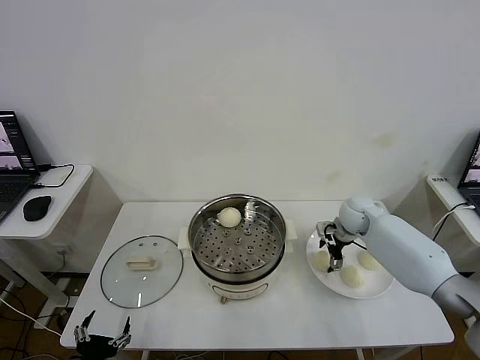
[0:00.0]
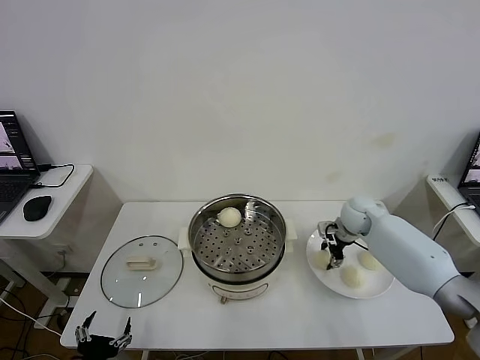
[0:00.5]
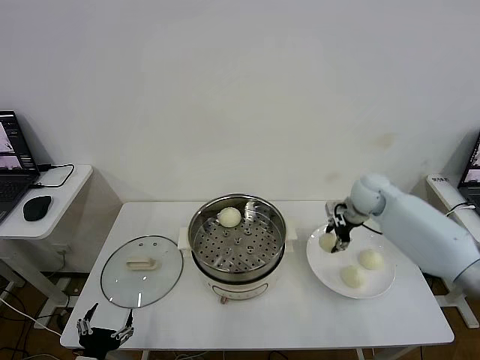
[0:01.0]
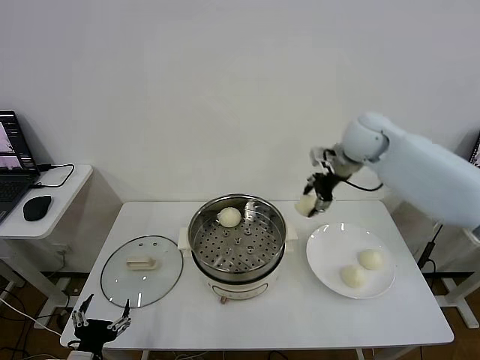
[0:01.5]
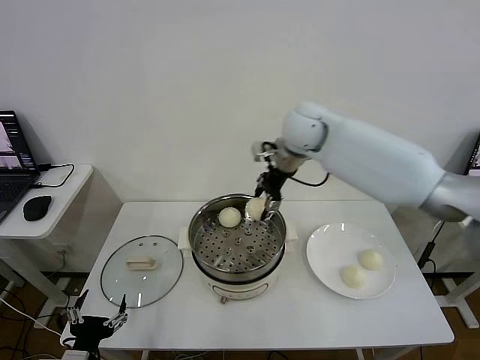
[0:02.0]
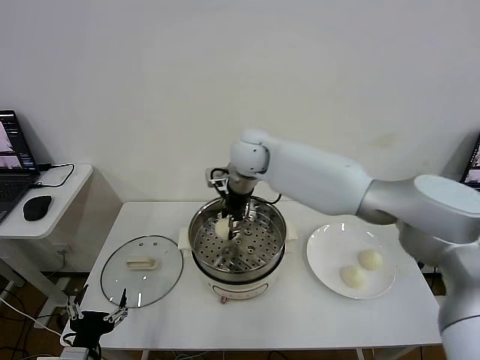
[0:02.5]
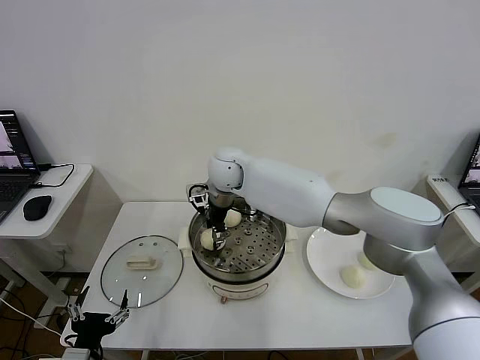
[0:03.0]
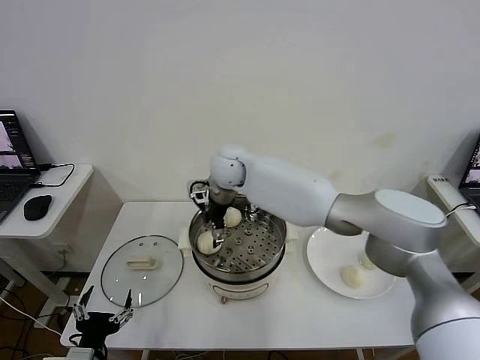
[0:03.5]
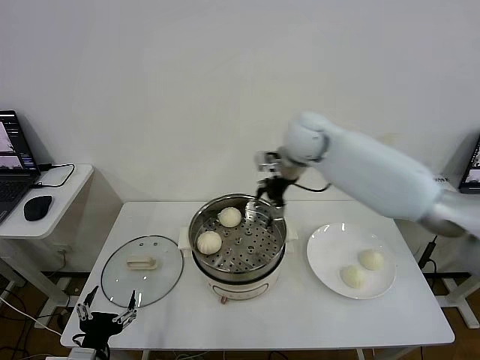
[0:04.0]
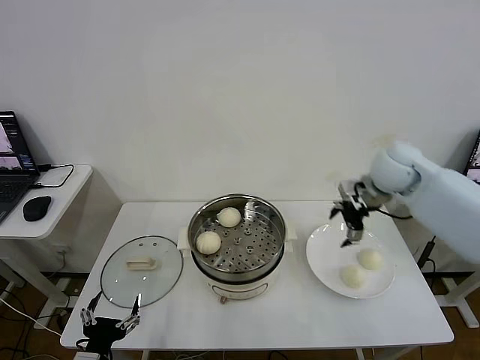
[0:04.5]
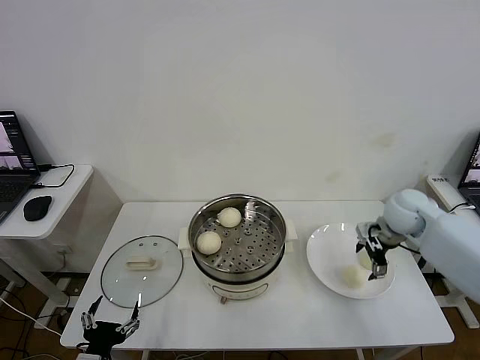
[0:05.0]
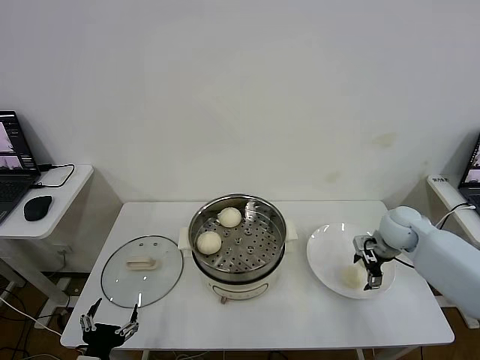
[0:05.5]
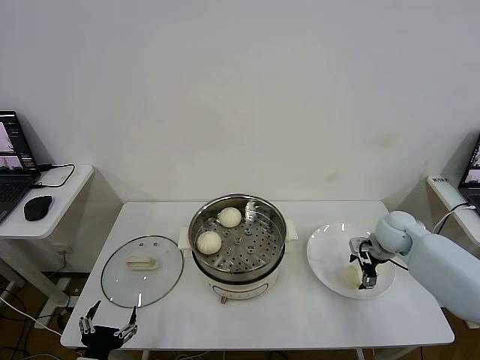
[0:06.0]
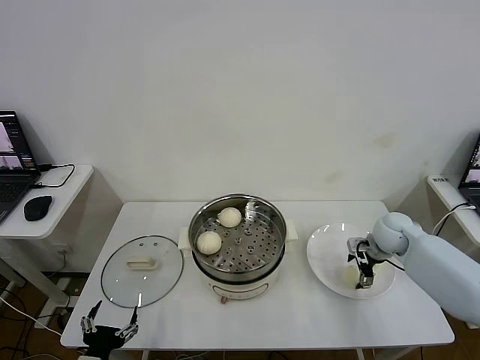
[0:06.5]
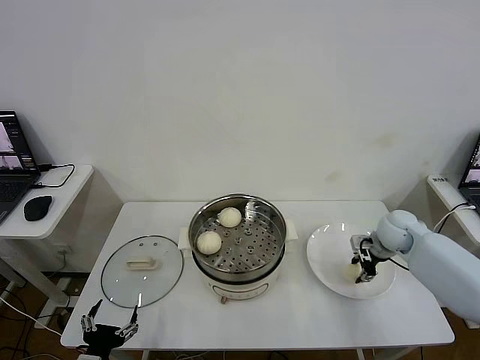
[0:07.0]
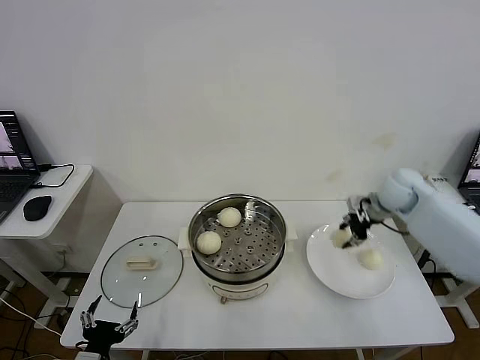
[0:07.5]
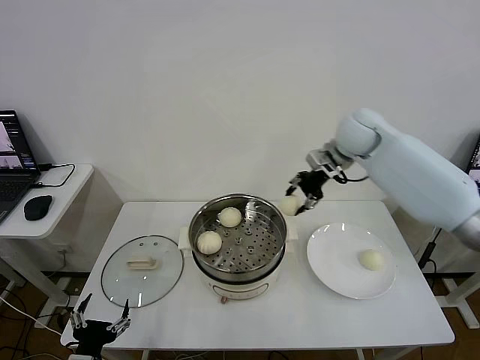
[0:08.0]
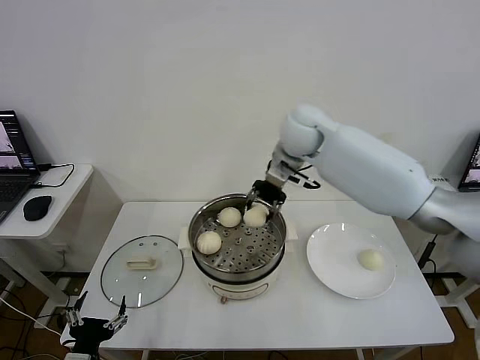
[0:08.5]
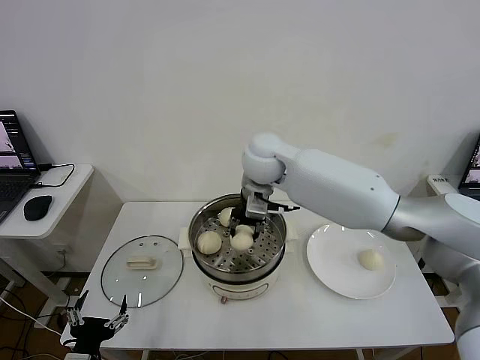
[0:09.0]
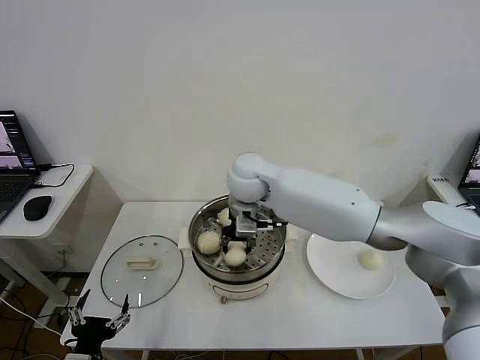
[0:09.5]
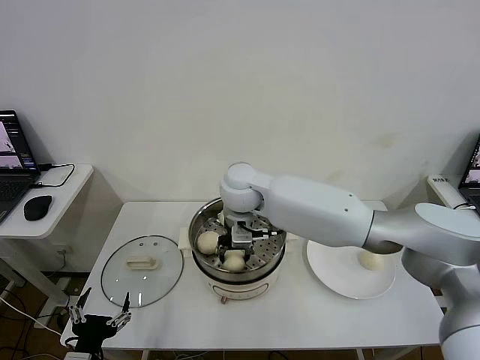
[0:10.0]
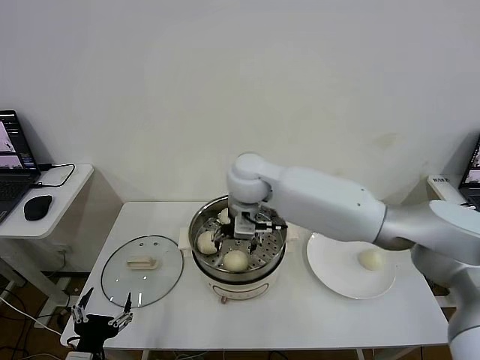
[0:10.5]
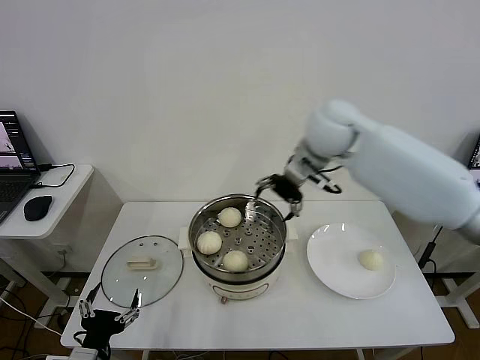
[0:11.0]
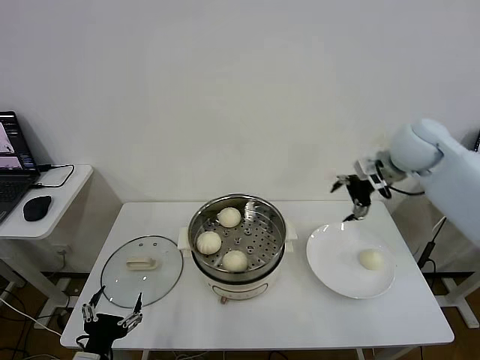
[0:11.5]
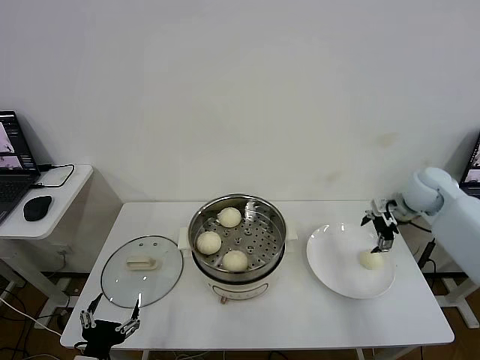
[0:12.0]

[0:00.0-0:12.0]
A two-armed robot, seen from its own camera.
Step, 0:00.5 to 0:03.0: Place the baozi on the steamer with right gripper.
Step, 0:04.0 to 0:06.5: Grasp the baozi in the plate with right gripper.
Step, 0:07.0 to 0:10.0: Place the baozi on the steamer with right gripper.
0:00.0 to 0:02.0: The right gripper goes some 30 cm upward and to the left, and closes up.
0:02.0 to 0:04.0: The right gripper is displaced to the right by approximately 10 cm, and opens up.
0:04.0 to 0:06.0: The right gripper heads downward and to the right, covering some 30 cm.
0:06.0 to 0:08.0: The right gripper is displaced upward, to the left and forward by roughly 30 cm, and closes its fingers.
0:08.0 to 0:10.0: The right gripper travels to the left by approximately 20 cm.
0:10.0 to 0:12.0: The right gripper travels to the right by approximately 40 cm, and opens up.

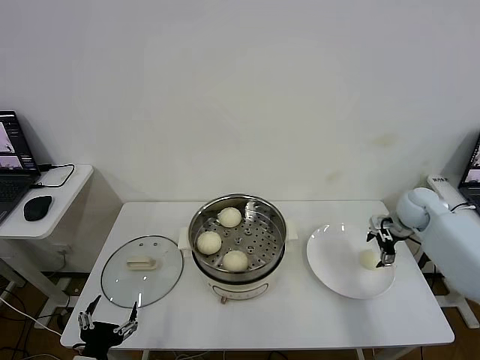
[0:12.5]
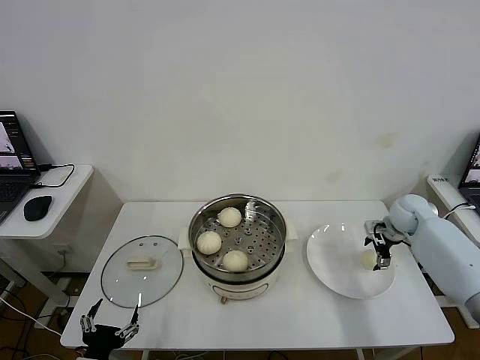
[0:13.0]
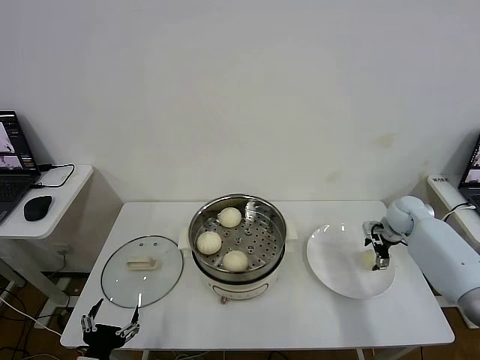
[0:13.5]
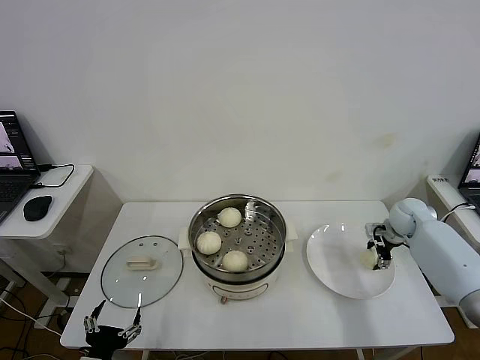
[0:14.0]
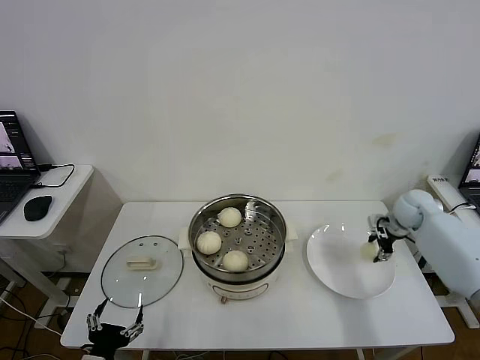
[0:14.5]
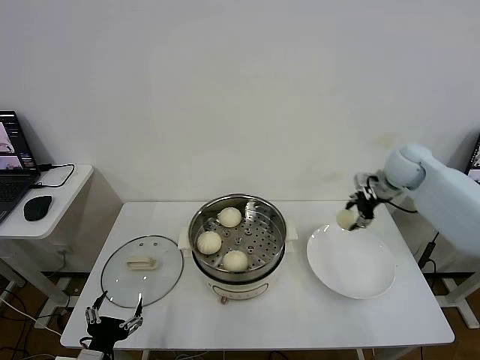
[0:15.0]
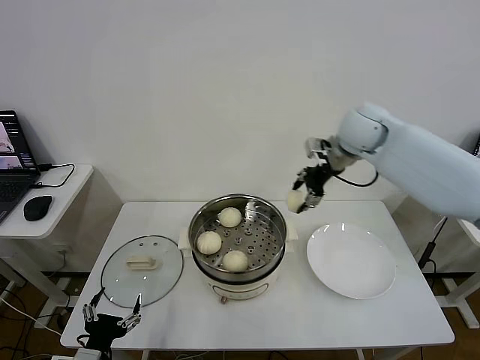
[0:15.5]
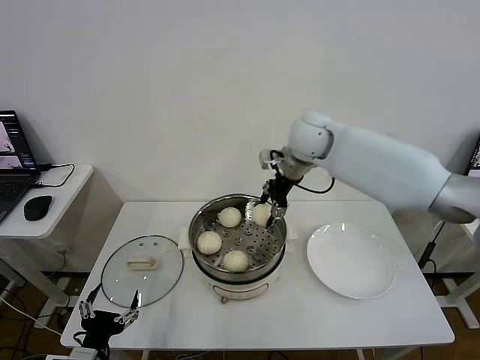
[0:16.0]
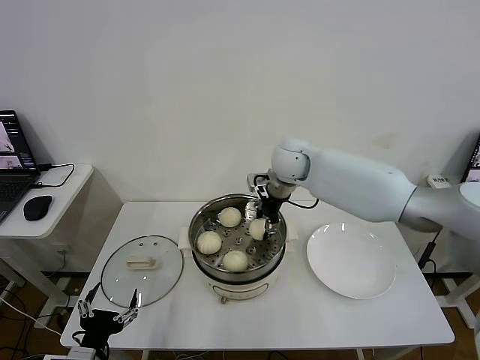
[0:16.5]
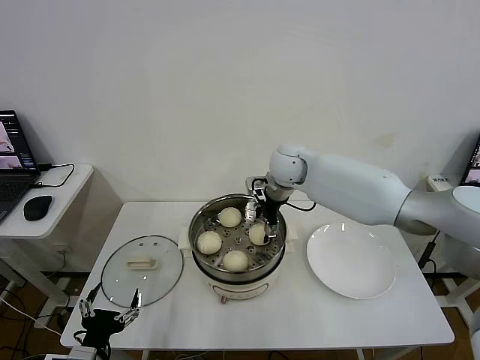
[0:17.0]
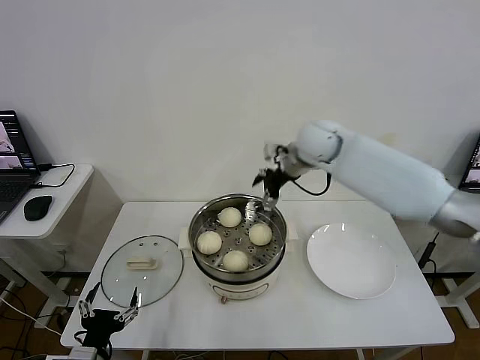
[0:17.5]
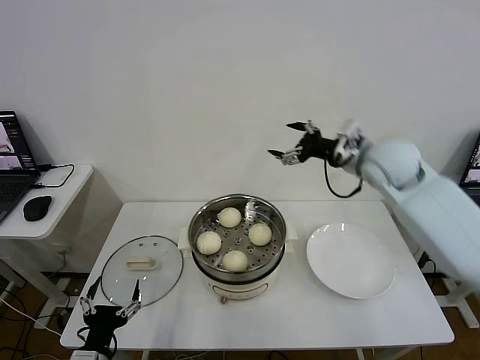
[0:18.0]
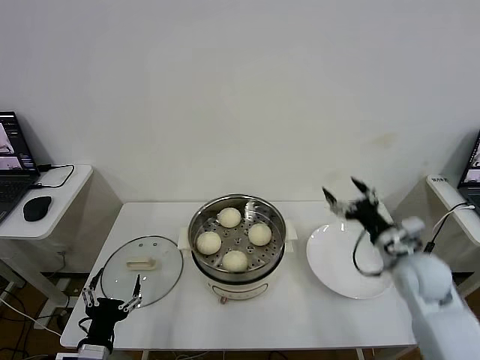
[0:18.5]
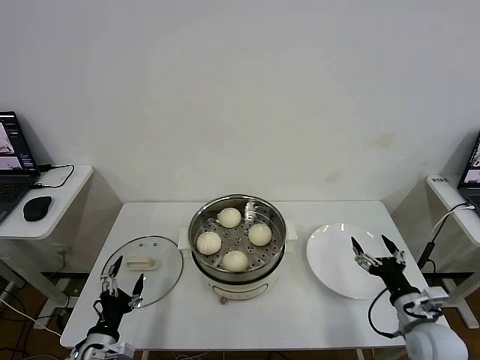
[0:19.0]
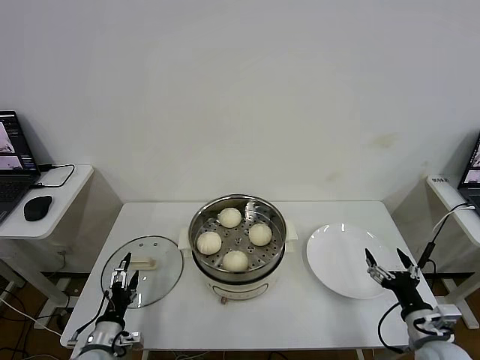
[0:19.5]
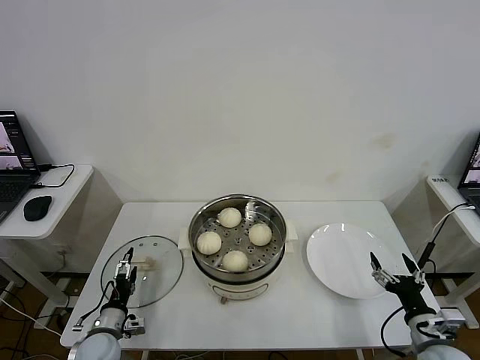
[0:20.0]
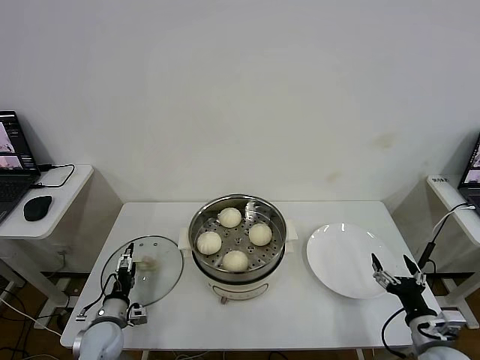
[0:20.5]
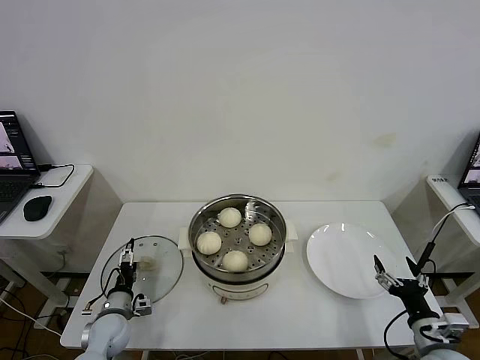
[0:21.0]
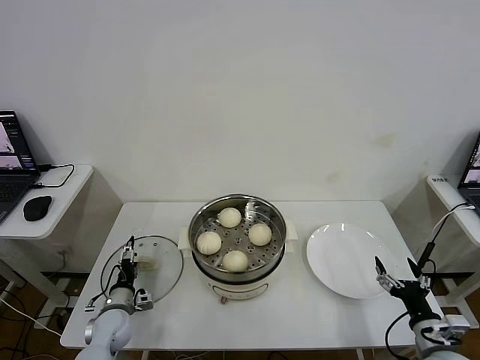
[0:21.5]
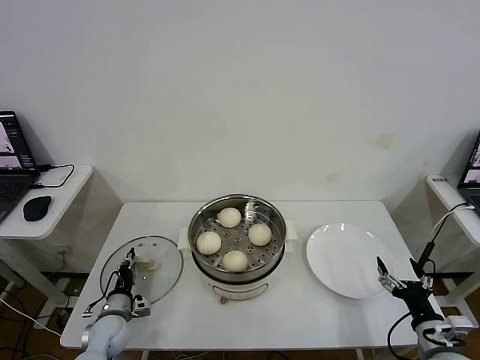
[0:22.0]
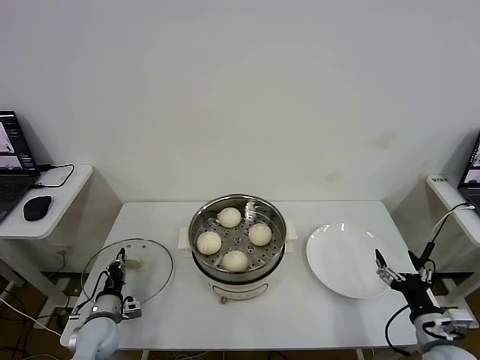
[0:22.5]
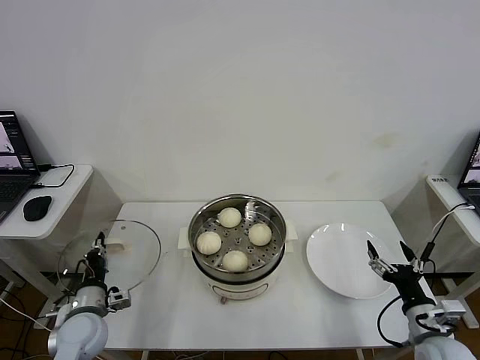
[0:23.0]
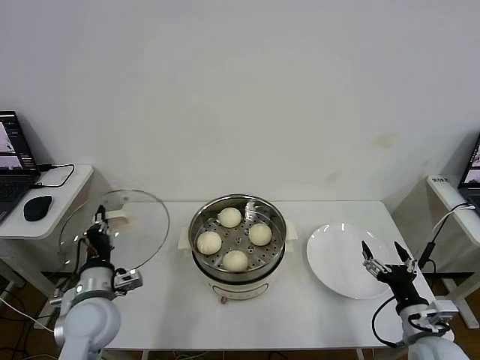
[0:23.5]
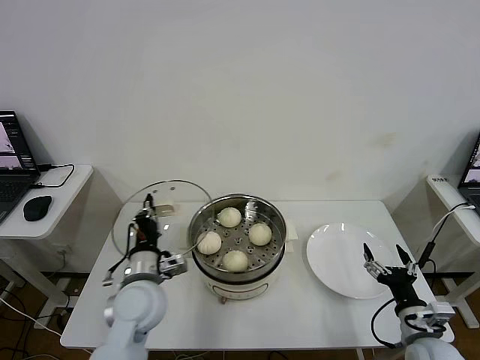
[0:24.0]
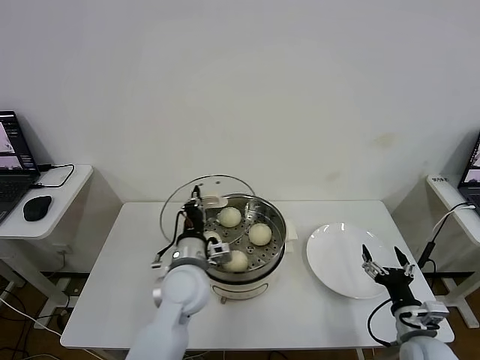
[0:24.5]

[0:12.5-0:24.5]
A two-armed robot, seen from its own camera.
Step, 0:14.5 to 0:17.0: Place the baozi on the steamer with right gripper.
Step, 0:17.5 to 0:22.0: Grasp the pot lid with left gripper.
0:12.5 to 0:14.5: The right gripper closes its fingers.
0:14.5 to 0:16.5: The right gripper heads to the left, covering some 35 cm.
0:16.5 to 0:18.5: The right gripper shifts roughly 35 cm to the right, backward and downward, and opens its fingers.
0:18.5 to 0:20.5: The left gripper goes about 15 cm forward and downward; the right gripper moves backward and downward, about 20 cm.
0:20.5 to 0:22.5: The left gripper closes its fingers.
0:22.5 to 0:24.5: The left gripper moves to the right and upward, approximately 30 cm.

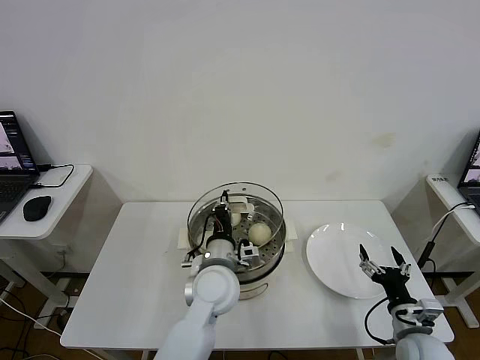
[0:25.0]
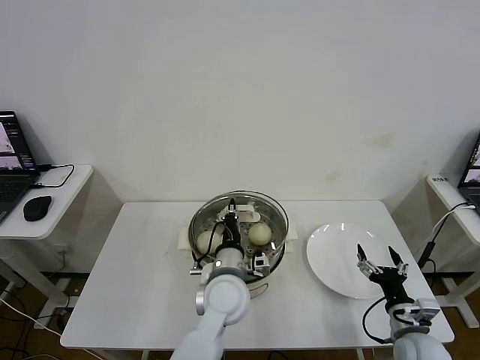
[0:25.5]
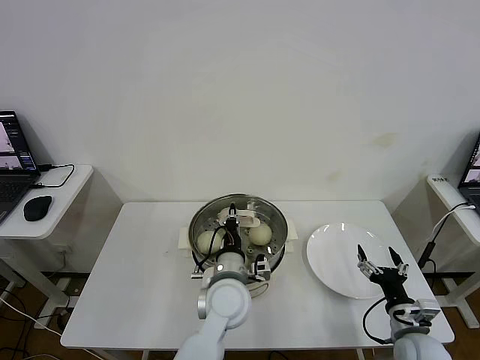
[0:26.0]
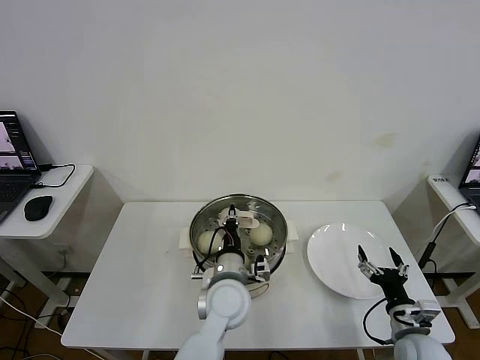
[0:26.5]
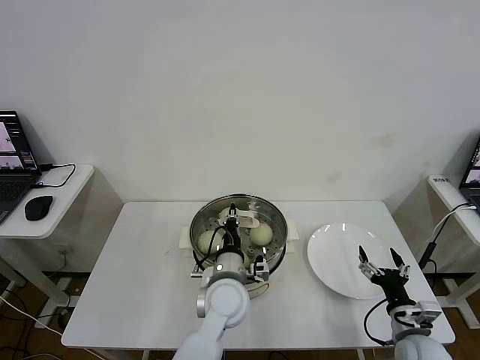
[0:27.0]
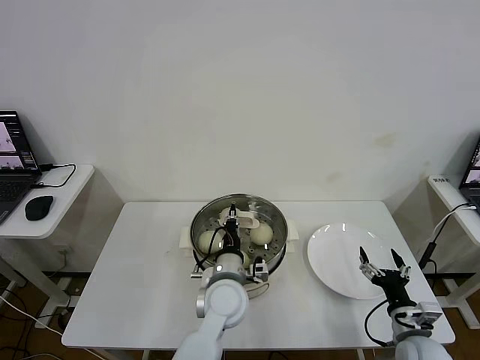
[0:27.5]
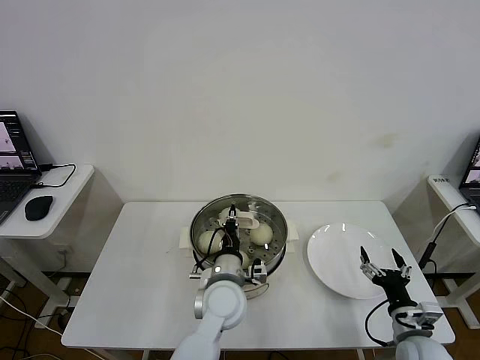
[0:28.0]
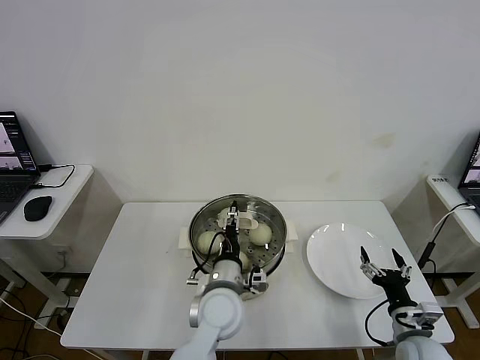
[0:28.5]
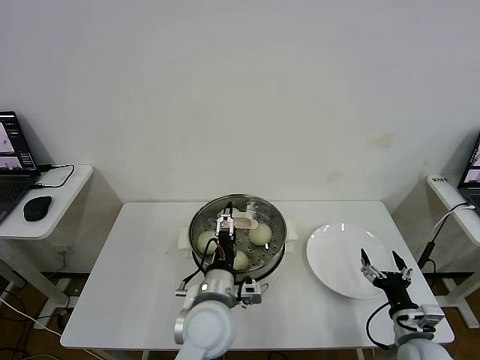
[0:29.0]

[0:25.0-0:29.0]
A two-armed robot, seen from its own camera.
0:25.0 to 0:27.0: The grippers move only a little.
0:27.0 to 0:29.0: The left gripper shifts roughly 5 cm backward, and opens up.
